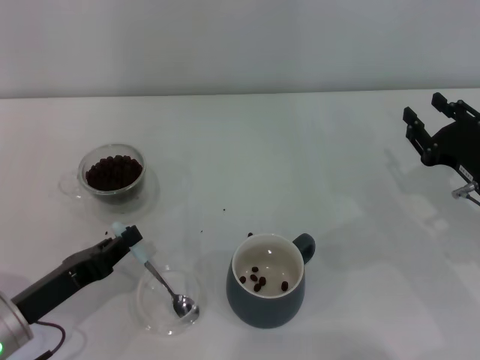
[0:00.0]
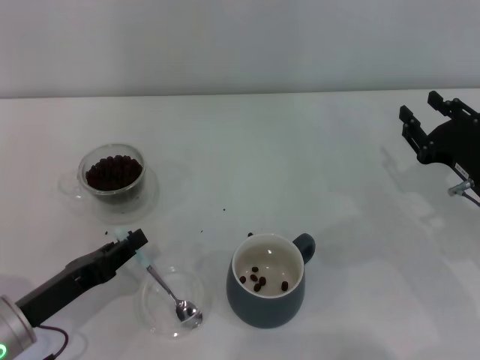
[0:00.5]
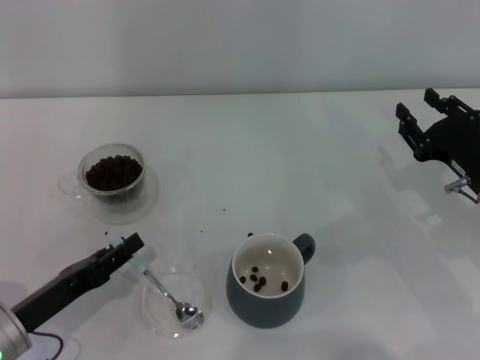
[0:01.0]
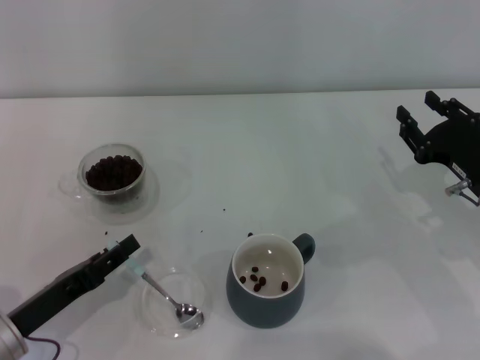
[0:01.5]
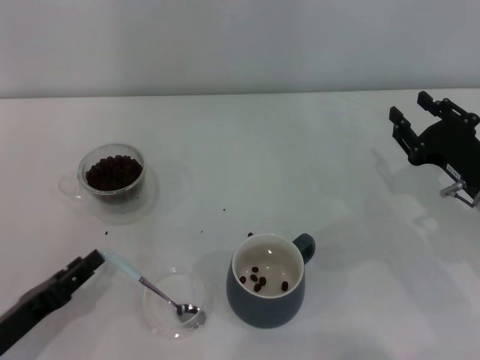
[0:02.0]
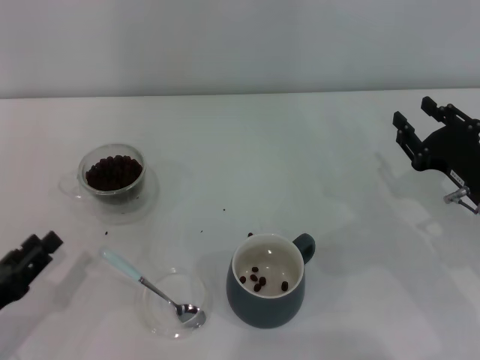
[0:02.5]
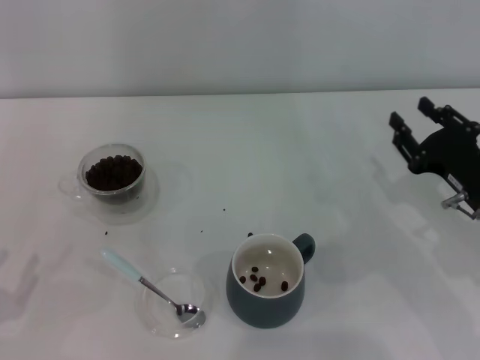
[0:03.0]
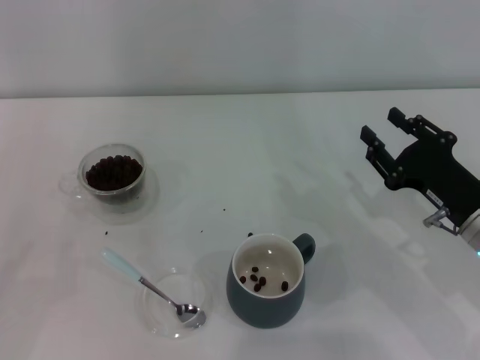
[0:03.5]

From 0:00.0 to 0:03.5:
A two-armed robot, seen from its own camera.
Task of the whole recording: Use a blue spoon to take out the coffee beans from the glass and pour them into the gray cup.
Step, from 0:00.0 to 0:02.0: Place the spoon back in its original place with the right gripper.
From 0:00.0 to 0:02.0: The left gripper opens.
From 0:02.0 to 0:03.5: The left gripper is displaced to the left by approximately 5 cm.
